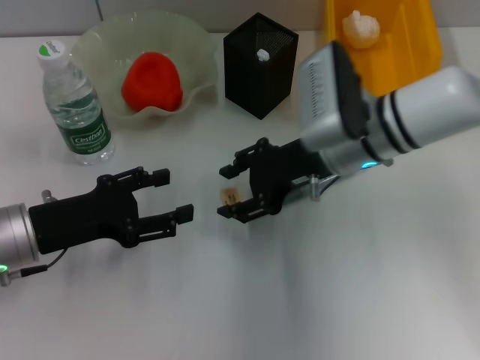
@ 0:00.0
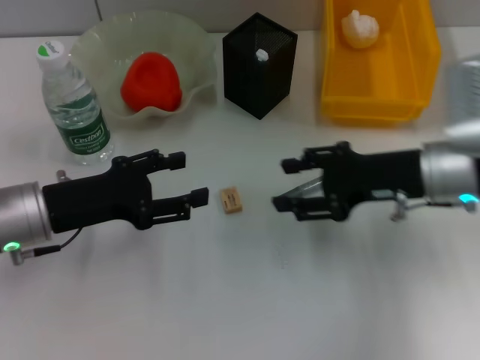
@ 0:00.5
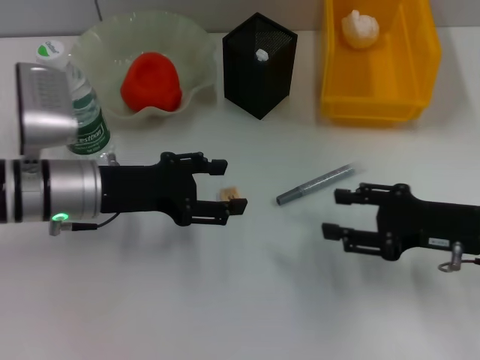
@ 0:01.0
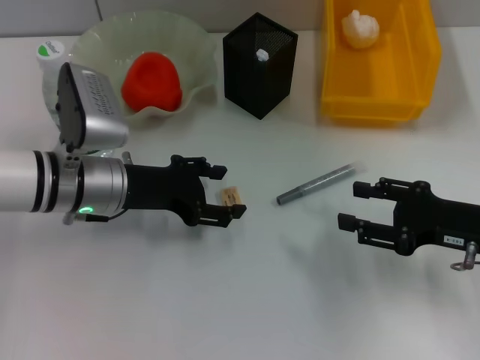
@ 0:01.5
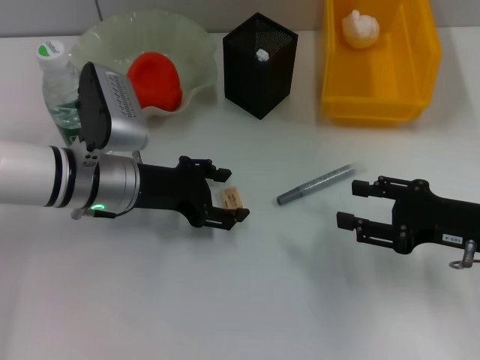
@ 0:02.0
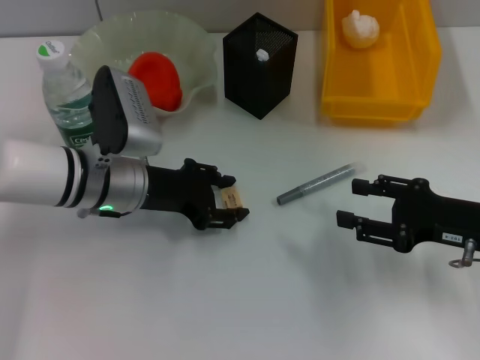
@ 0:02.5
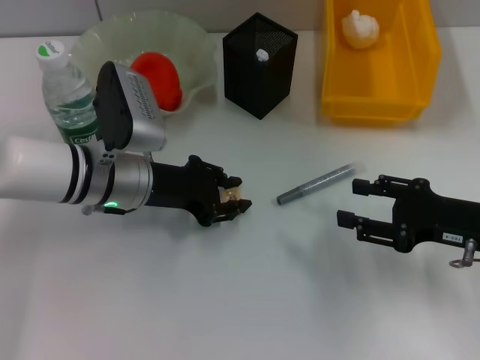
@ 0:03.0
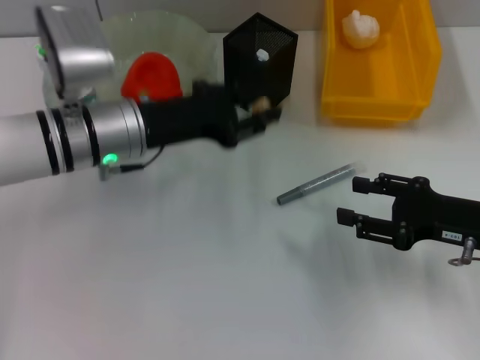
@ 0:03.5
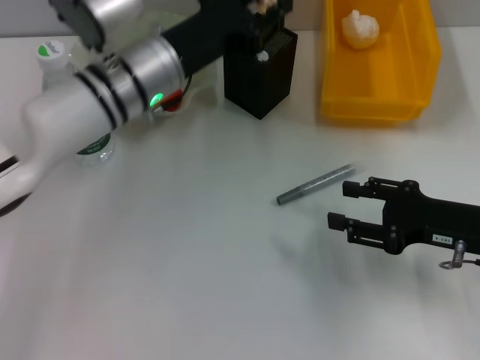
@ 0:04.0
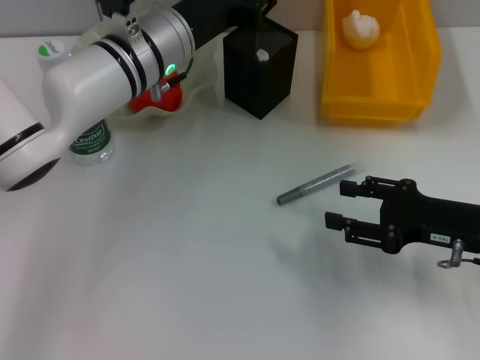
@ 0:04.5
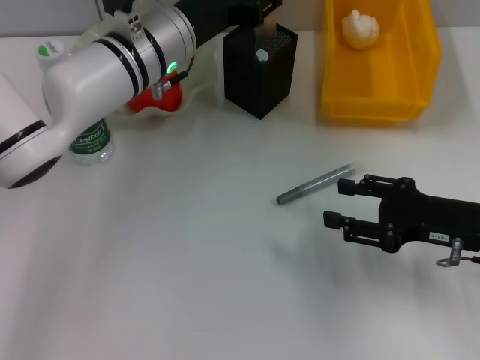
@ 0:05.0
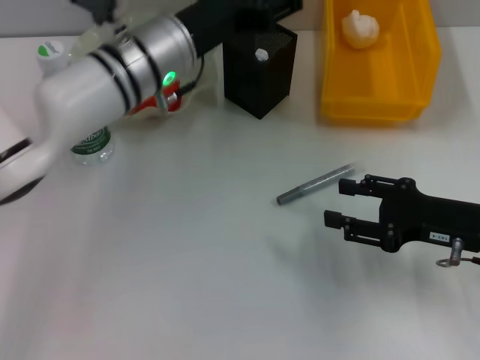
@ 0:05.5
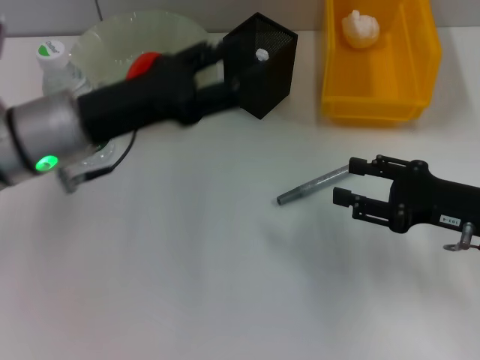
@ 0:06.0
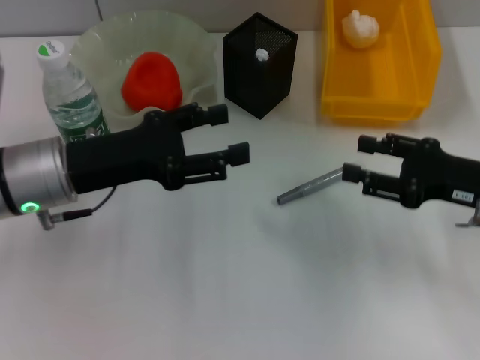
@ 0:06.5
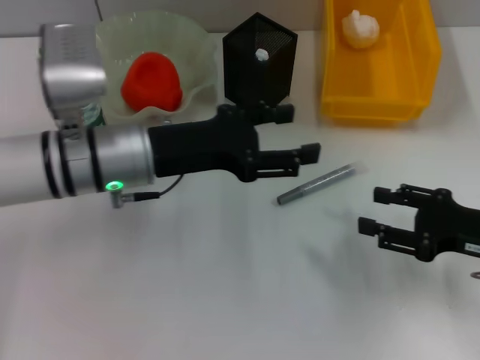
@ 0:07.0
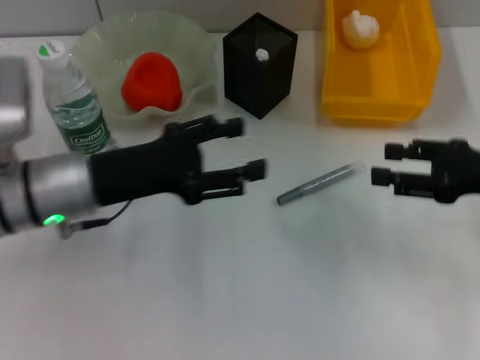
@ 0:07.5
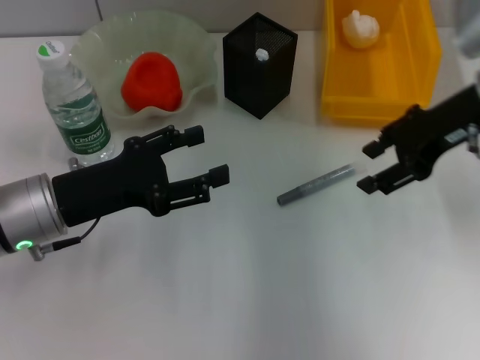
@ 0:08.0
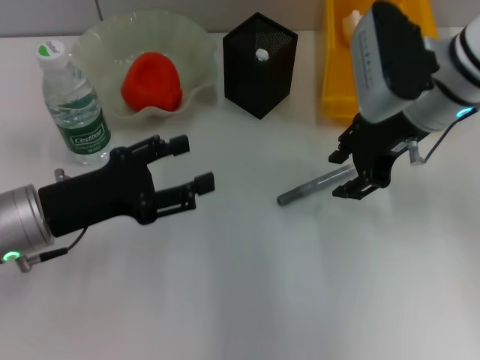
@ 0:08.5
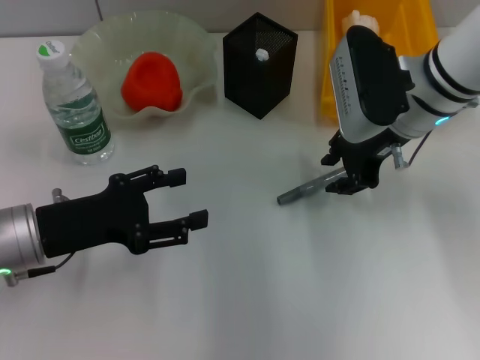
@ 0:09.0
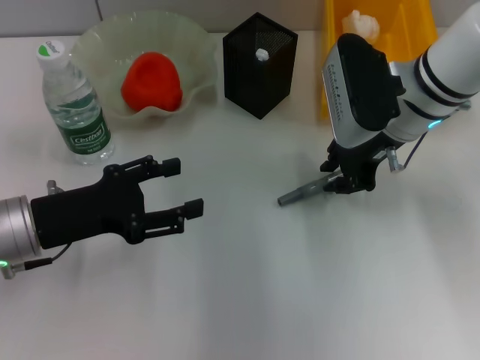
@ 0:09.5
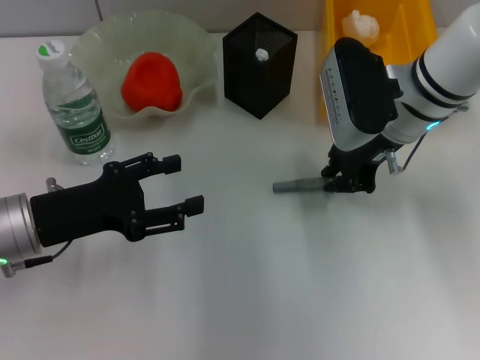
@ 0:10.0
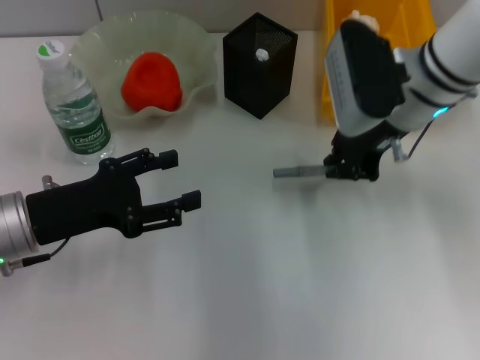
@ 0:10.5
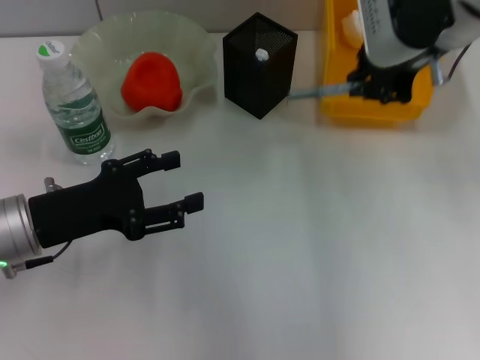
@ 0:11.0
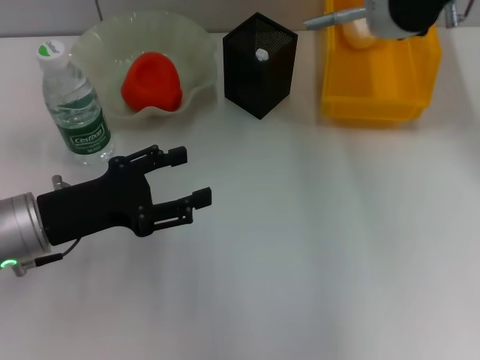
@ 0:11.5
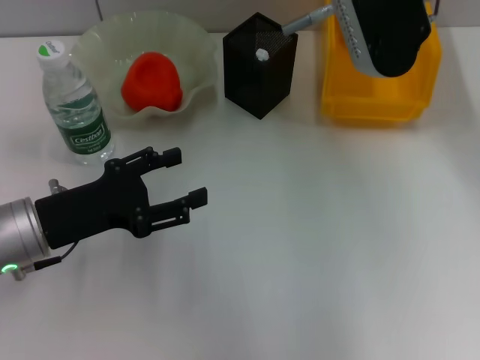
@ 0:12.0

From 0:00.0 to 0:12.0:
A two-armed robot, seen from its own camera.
Step, from 0:00.0 to 0:02.5: Grab the eraser with the left hand.
Step, from 0:03.0 to 0:05.0: Place the eraser into the pen holder with the left hand.
Step, from 0:05.5 to 0:10.0: Grab the gray glue with the right hand.
From 0:00.0 to 0:02.0: The right gripper is displaced to the right and backward by about 20 cm; the left gripper shifts some 10 cm to the right and forward.
From 0:02.0 to 0:04.0: The left gripper heads upward and to the right, covering roughly 10 cm, and closes.
From 0:04.0 to 0:06.0: The left gripper shifts about 10 cm to the left and backward, and opens up.
From 0:06.0 to 0:08.0: The left gripper moves some 5 cm to the right and comes back. The right gripper heads upward and forward, covering approximately 15 cm.
From 0:08.0 to 0:10.0: The right gripper heads to the left and downward, covering roughly 10 cm, and closes.
From 0:10.0 to 0:12.0: The right gripper heads upward, covering about 15 cm.

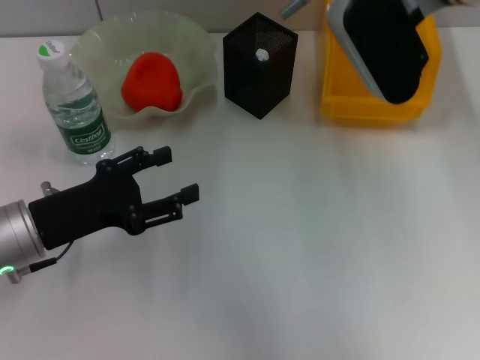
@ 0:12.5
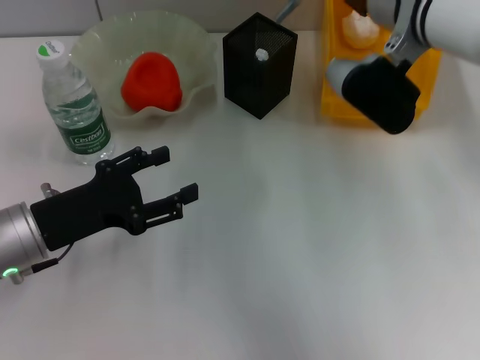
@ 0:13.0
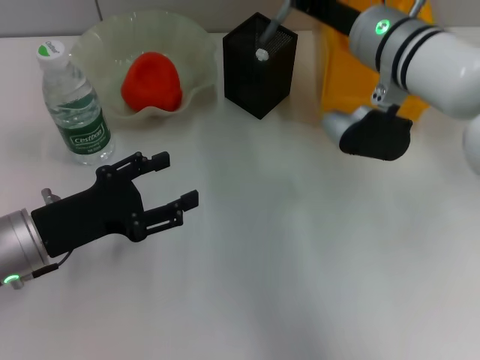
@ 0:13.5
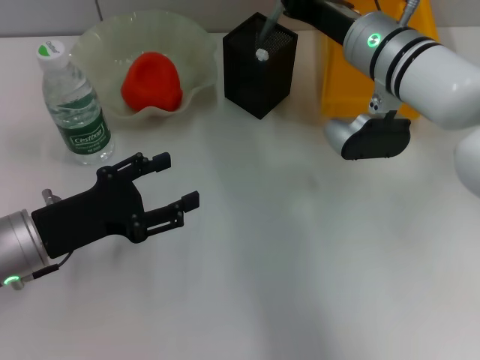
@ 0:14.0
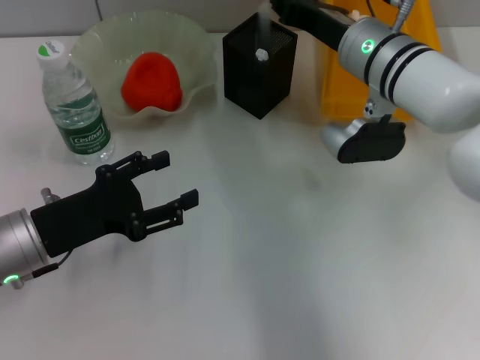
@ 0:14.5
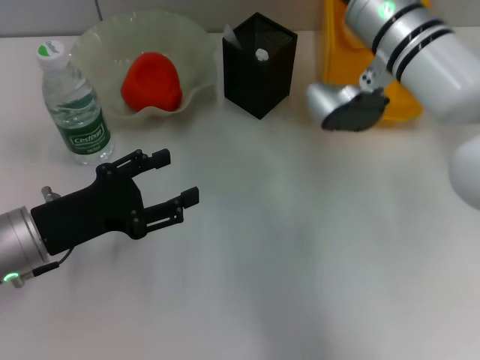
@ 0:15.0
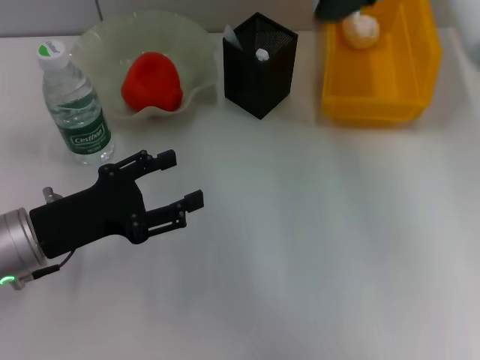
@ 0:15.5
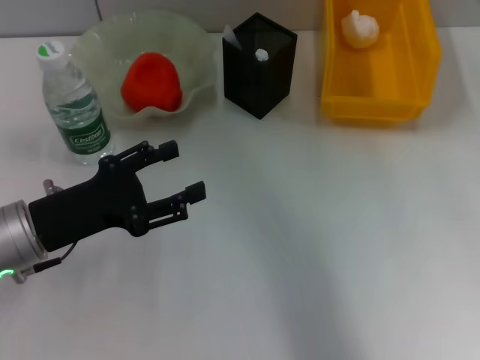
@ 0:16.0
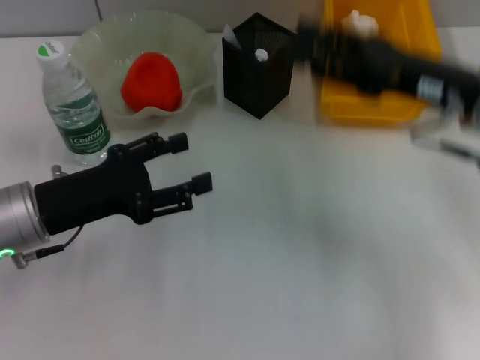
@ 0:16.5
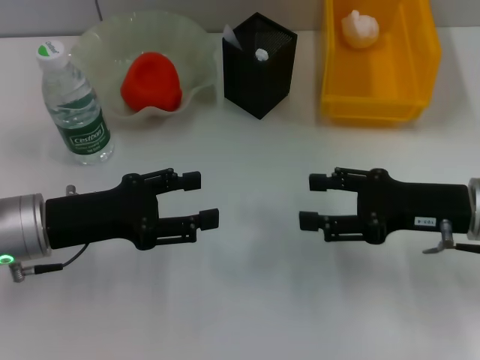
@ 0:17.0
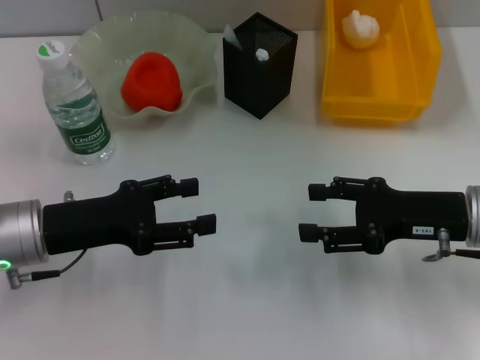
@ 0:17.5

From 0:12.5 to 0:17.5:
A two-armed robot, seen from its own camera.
Step, from 0:12.5 to 0:14.5: Place the gray glue into the pen holder with the right hand.
From 0:12.5 to 0:15.0: The right gripper heads downward, covering about 5 cm, and opens its fingers.
From 0:15.0 to 0:17.5: The right gripper goes about 20 cm to the right, backward and downward, and opens.

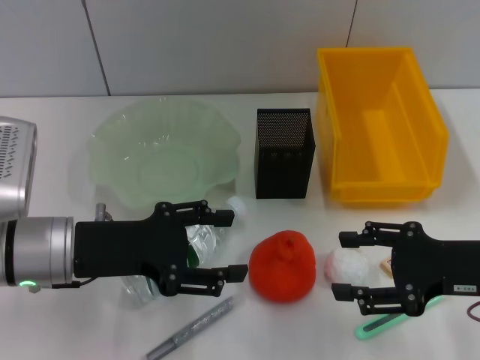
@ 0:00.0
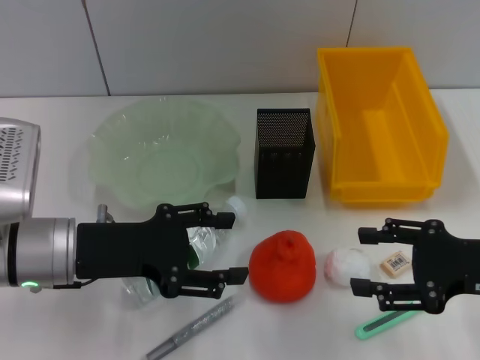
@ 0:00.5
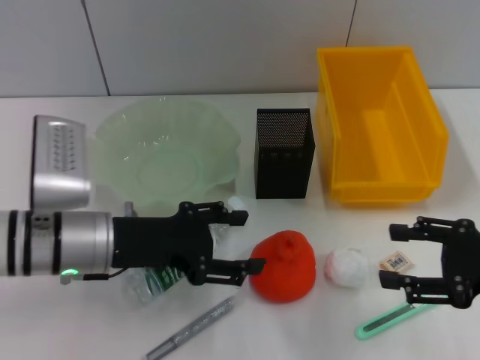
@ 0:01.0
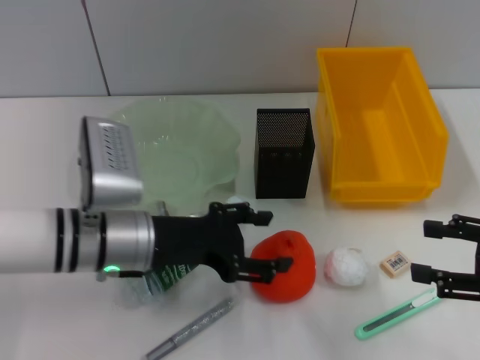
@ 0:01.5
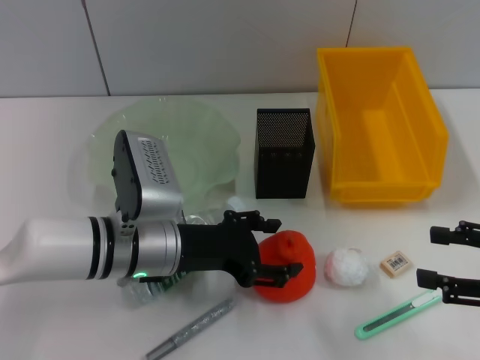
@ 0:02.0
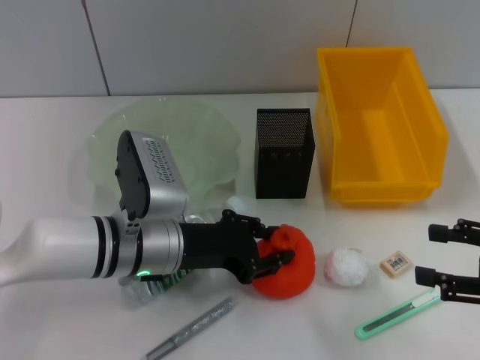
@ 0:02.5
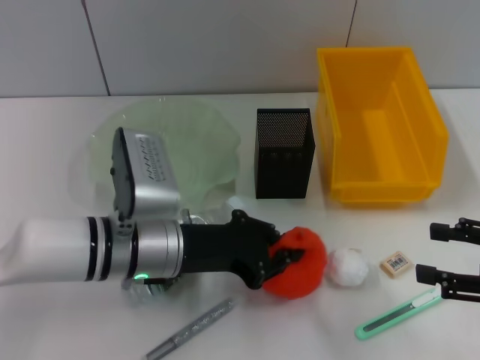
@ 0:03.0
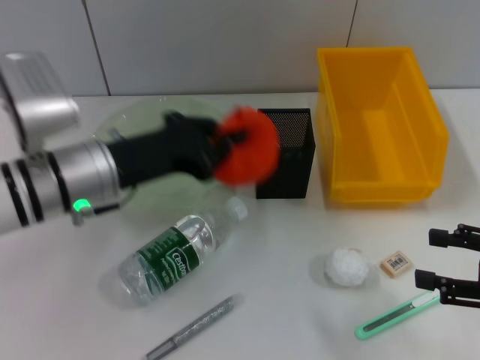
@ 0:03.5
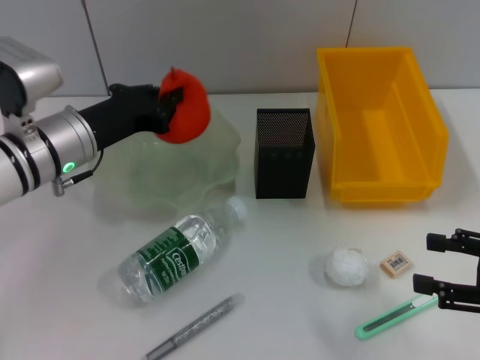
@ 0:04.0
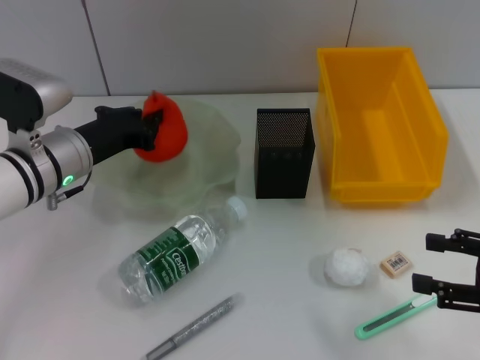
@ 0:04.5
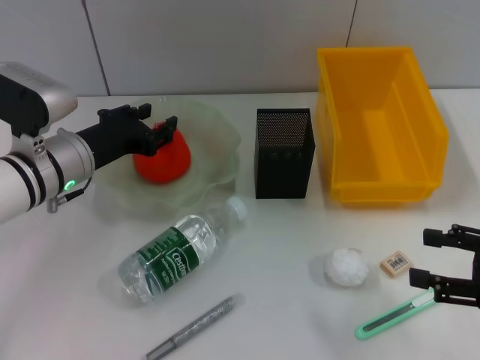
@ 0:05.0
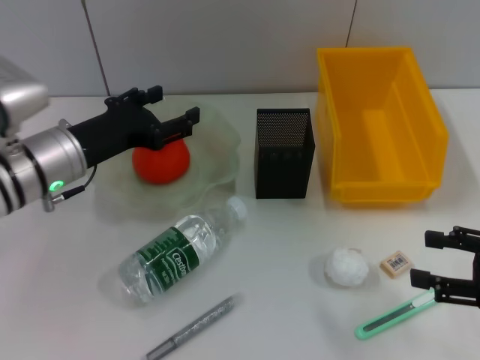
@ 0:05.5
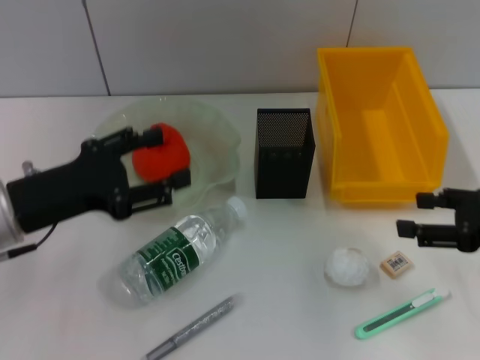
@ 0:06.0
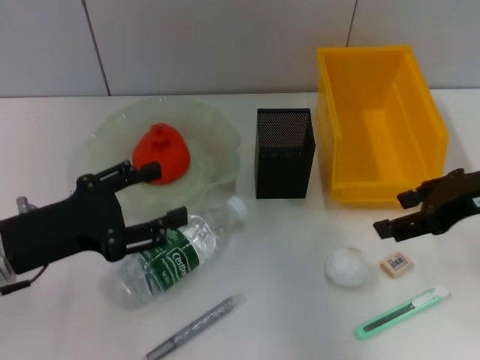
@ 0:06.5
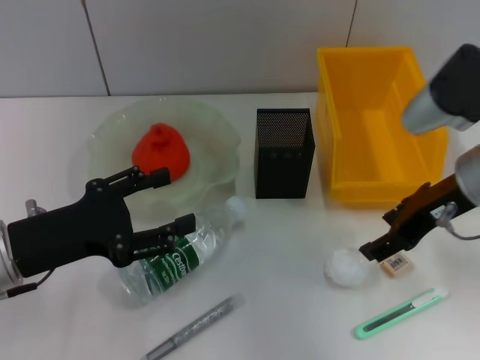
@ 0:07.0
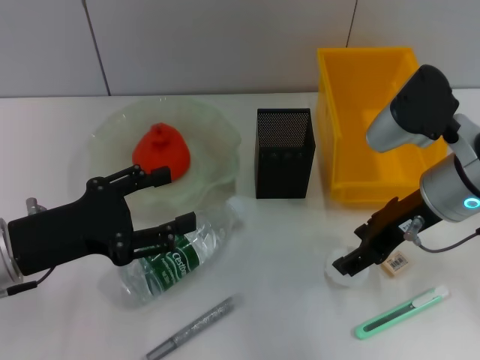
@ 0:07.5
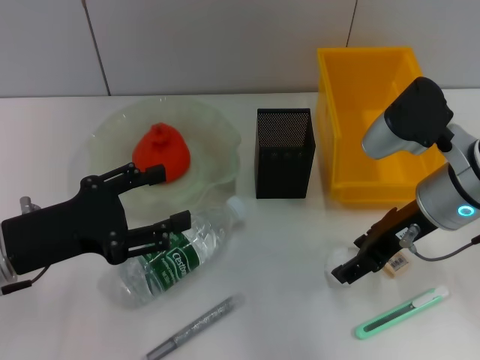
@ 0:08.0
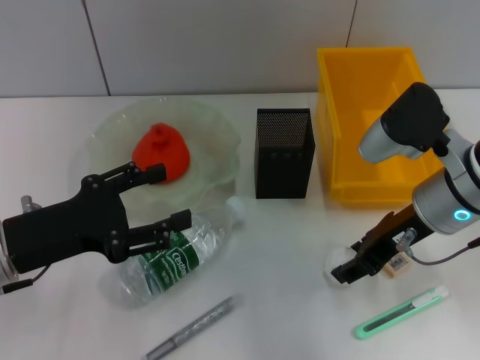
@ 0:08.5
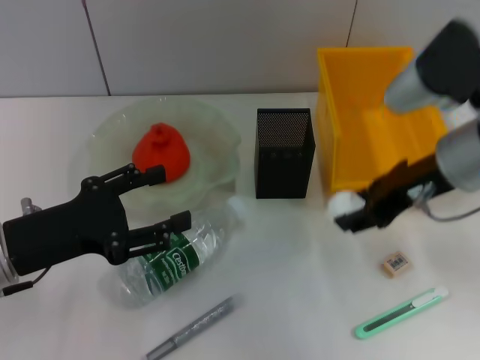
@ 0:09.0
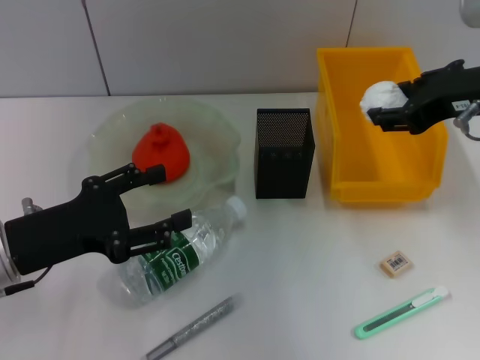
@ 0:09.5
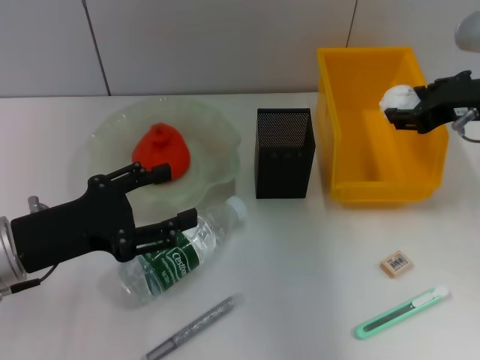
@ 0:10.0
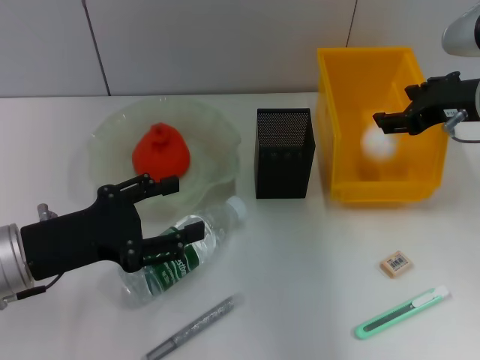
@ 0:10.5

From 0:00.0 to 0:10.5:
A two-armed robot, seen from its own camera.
Step, from 0:00.0 to 0:02.5: Grab the orange with the left hand.
Step, from 0:03.0 to 0:05.0: Place the orange into the fruit bowl with the left hand.
Step, from 0:05.5 to 0:08.0: Grab the paper ball with the right hand.
From 0:00.0 to 0:02.0: Both grippers move to the right, roughly 10 cm.
From 0:02.0 to 0:04.0: The left gripper shifts some 10 cm to the left and forward, and closes its fingers.
From 0:04.0 to 0:06.5: The right gripper moves forward, upward and to the left, approximately 15 cm. Meanwhile the left gripper is displaced backward and to the left by about 10 cm, and opens up.
From 0:06.5 to 0:08.5: The right gripper is displaced to the left and downward by some 10 cm.
From 0:08.5 to 0:10.5: The right gripper is displaced to the right and upward by roughly 10 cm.
